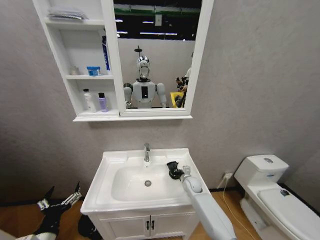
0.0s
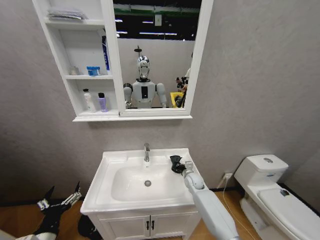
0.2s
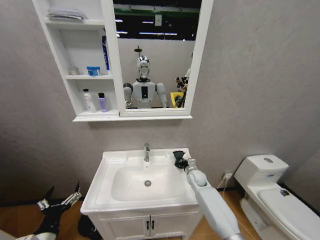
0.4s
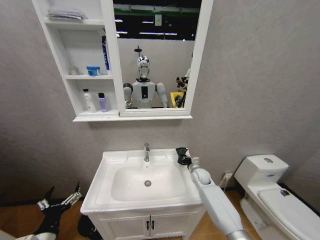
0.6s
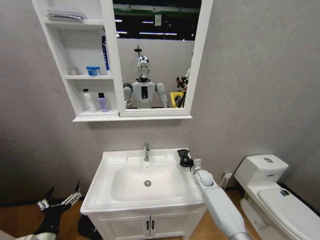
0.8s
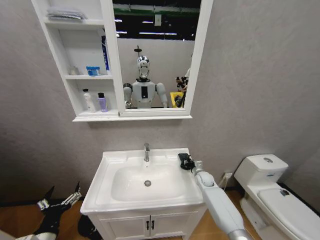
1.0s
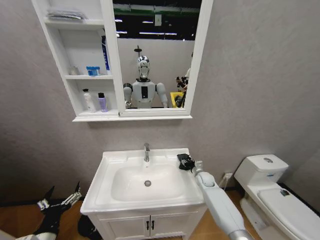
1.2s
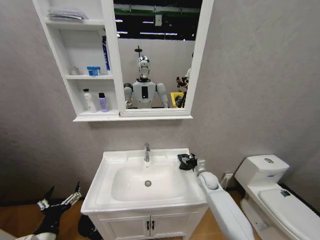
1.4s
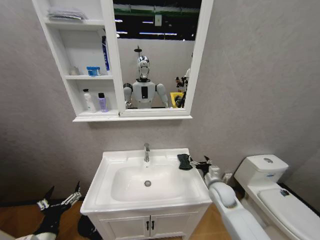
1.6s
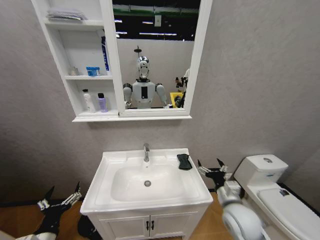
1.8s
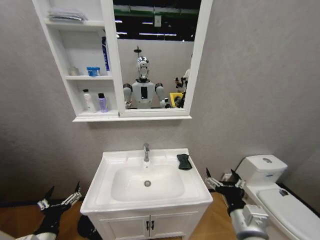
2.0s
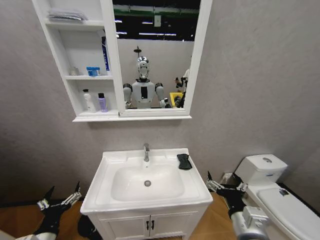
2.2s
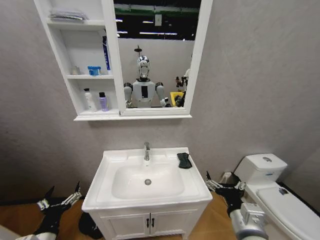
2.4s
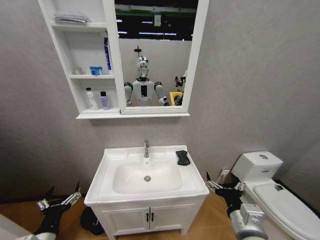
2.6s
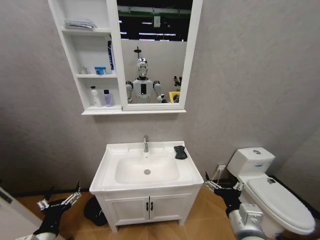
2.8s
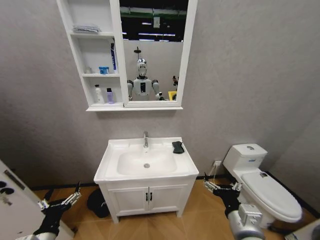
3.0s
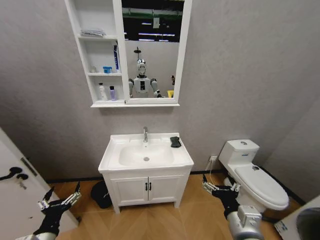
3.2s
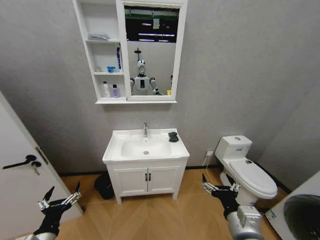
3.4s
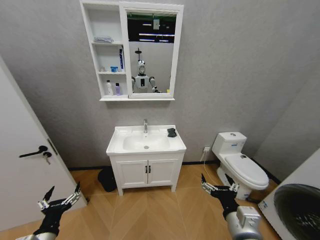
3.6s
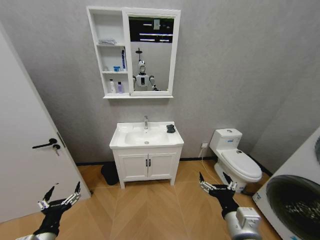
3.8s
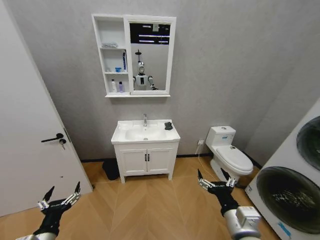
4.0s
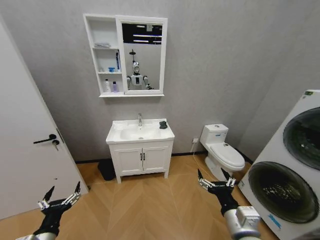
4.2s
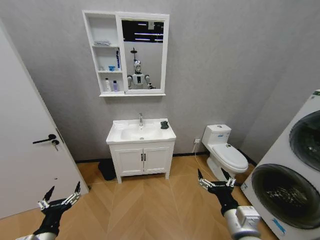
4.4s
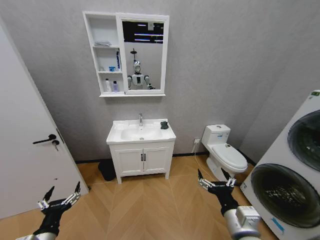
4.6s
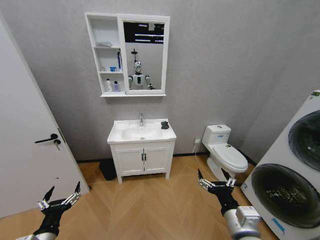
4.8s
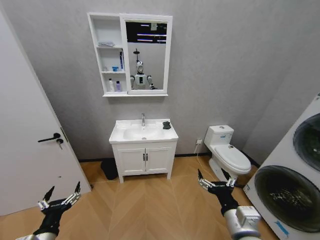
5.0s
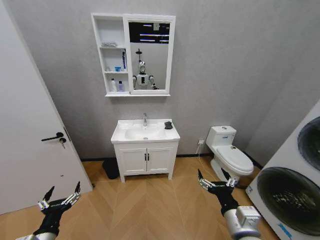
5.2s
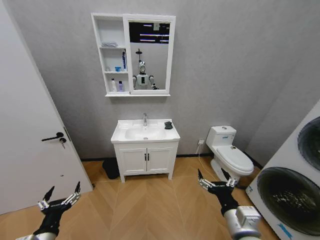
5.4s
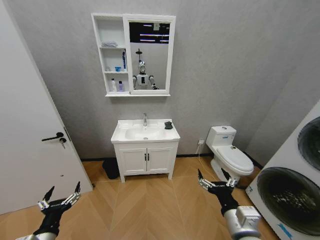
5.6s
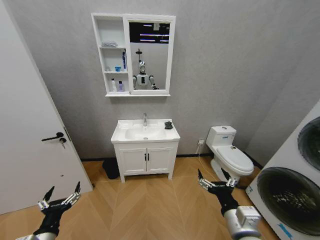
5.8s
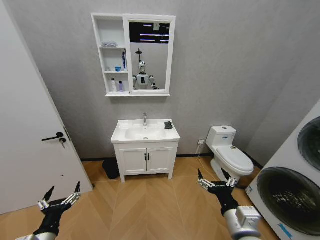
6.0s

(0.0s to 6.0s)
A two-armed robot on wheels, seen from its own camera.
Task of the whole recording: Move facial cleanser and shampoo from washbasin to cabinet, then wipe washbasin with towel.
0.0s - 1.6s: The right gripper heads backward, upward and to the right, covering approximately 15 cm, and opens its fingers.
1.6s - 3.0s: The right gripper heads backward, covering some 20 cm.
4.4s - 6.0s: Both grippers stay put.

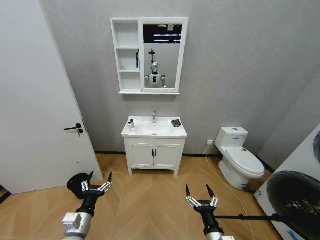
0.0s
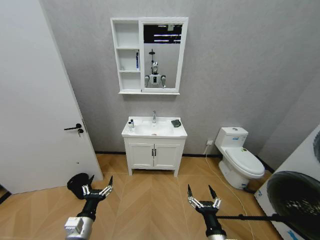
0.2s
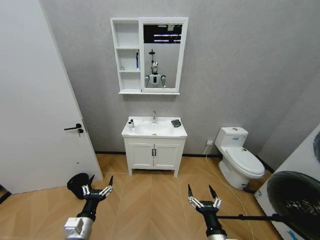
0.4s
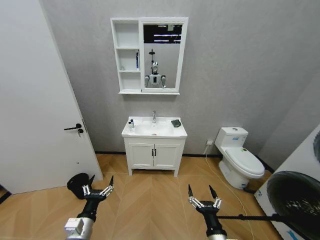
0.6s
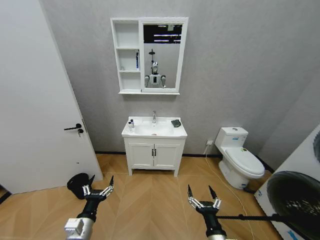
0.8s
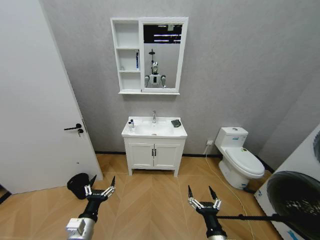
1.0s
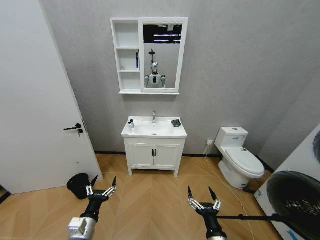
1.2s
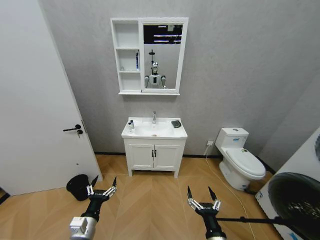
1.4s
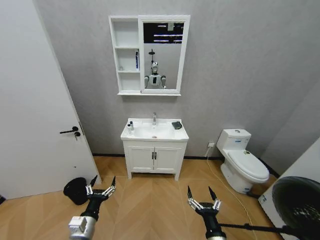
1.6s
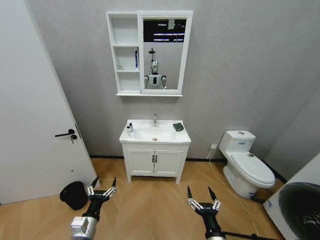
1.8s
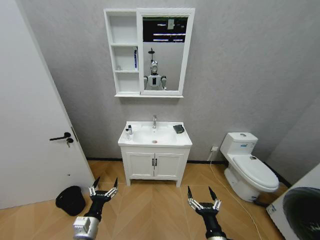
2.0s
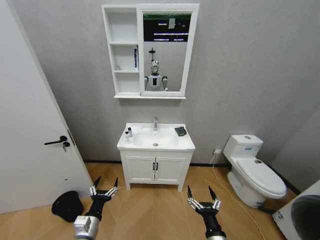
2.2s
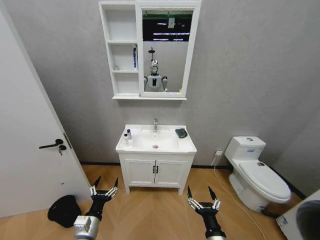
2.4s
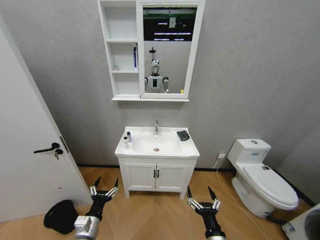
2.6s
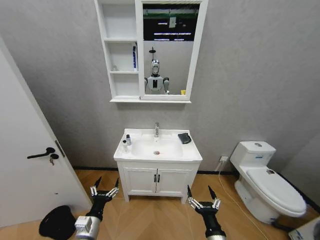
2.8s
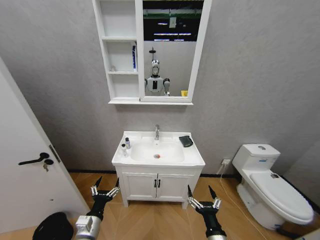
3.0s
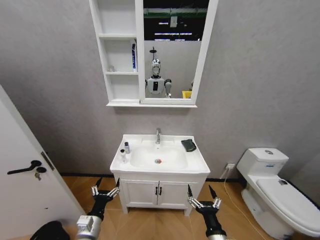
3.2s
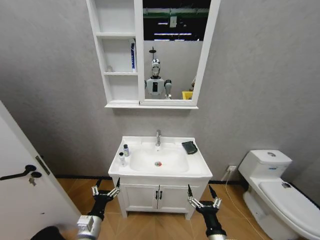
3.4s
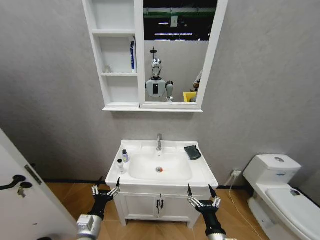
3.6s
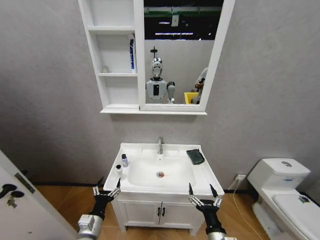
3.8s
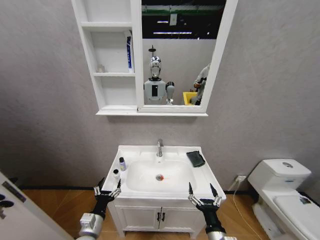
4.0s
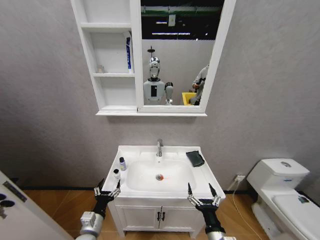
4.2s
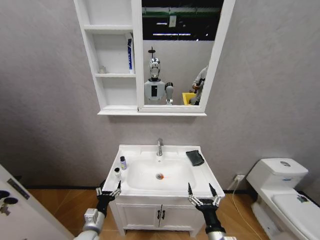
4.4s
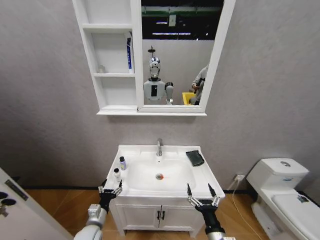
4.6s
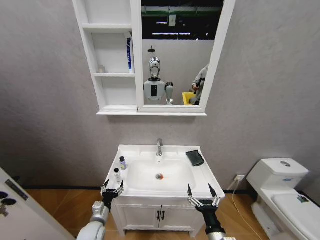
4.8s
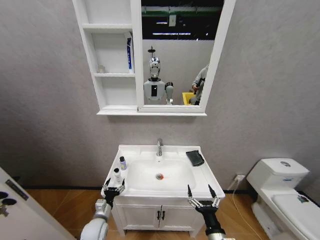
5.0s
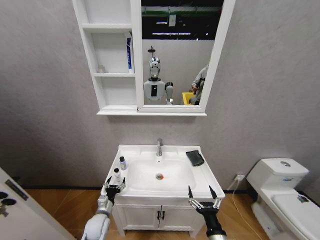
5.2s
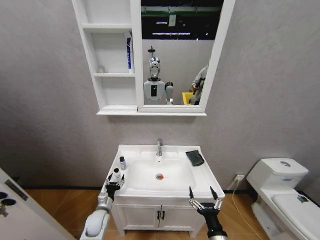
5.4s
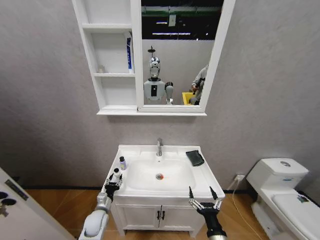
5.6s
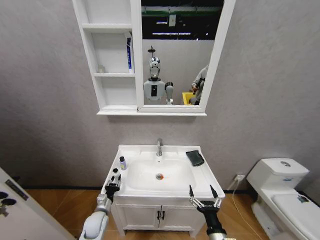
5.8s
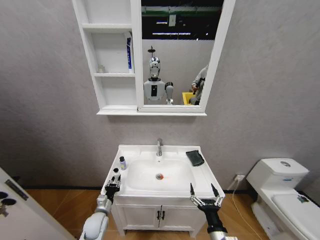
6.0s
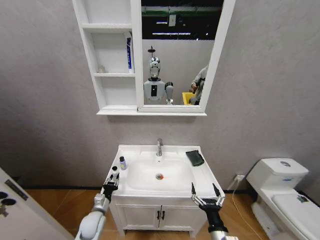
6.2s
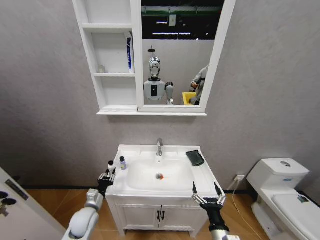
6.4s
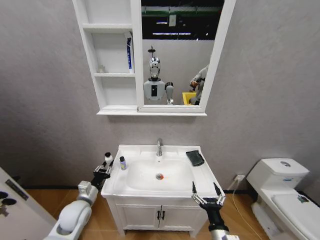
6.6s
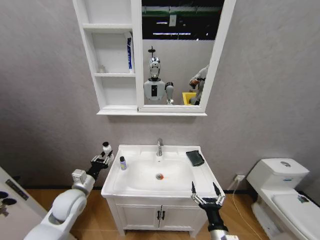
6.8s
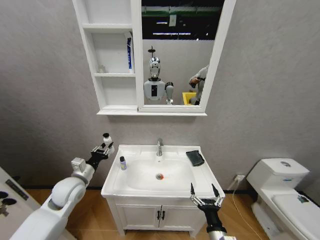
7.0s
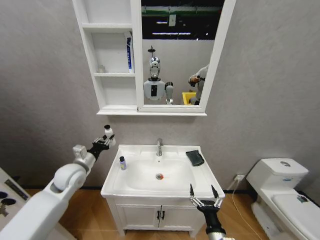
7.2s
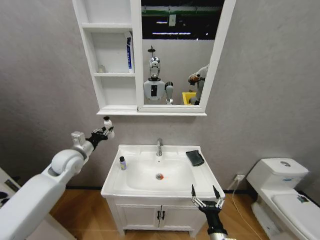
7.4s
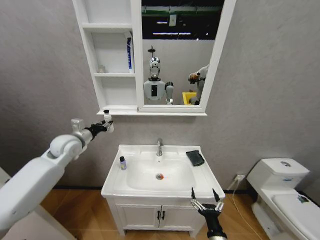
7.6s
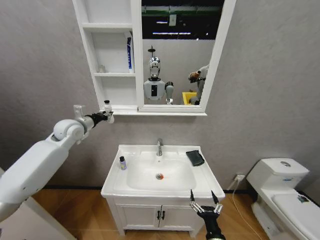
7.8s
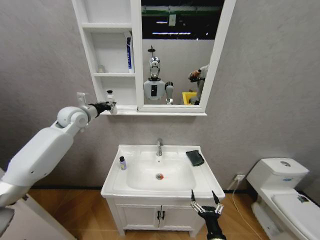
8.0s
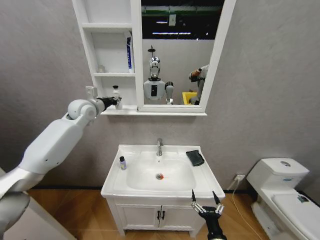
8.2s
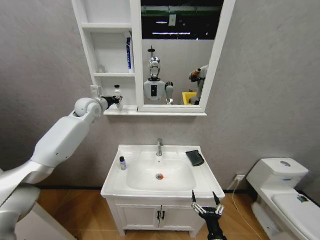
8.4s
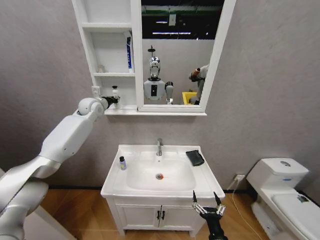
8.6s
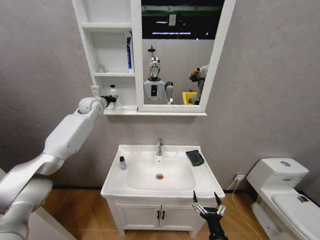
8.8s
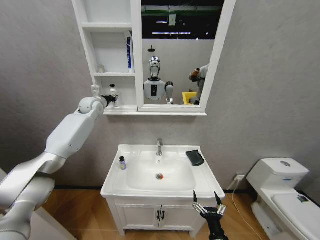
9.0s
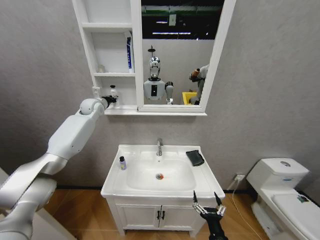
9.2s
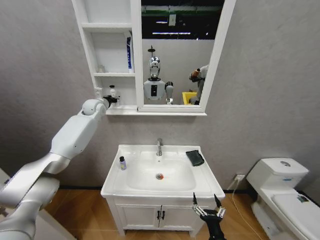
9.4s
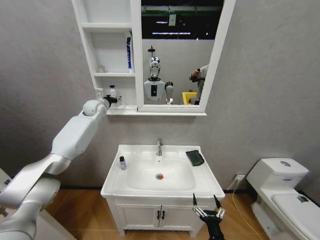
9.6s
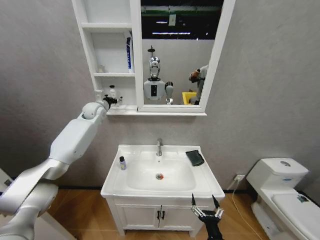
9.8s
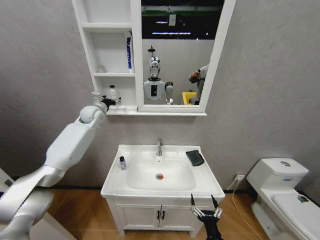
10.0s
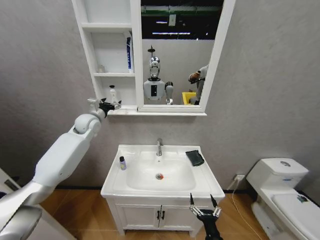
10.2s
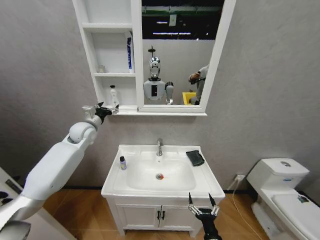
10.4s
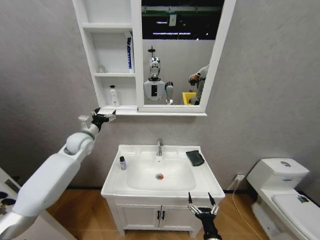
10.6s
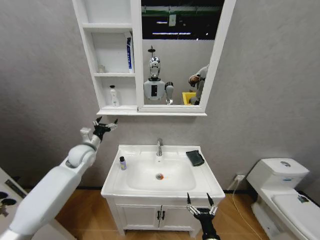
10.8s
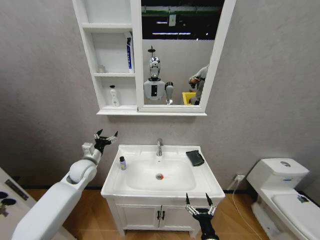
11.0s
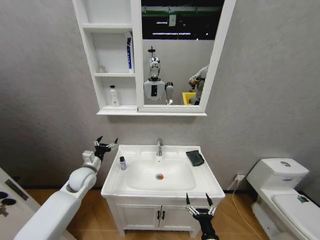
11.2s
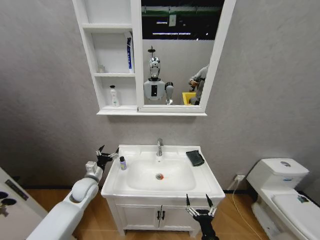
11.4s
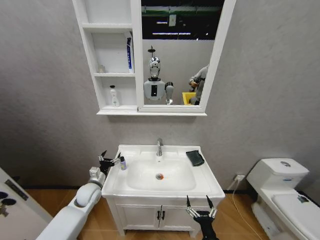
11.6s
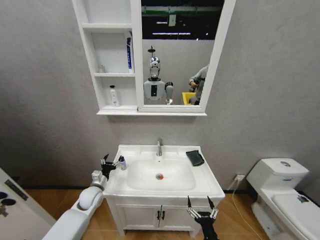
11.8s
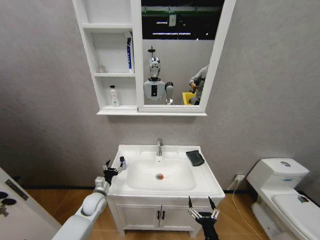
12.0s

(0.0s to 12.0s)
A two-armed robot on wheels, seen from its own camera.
Task of the whole recording: Move facial cleanser and shampoo from washbasin to cabinet, then wipe washbasin with towel.
3.0s - 4.4s: The left gripper changes place by some 5 cm.
4.4s - 6.0s: The left gripper travels forward and downward by about 10 cm, and closes.
6.0s - 7.6s: The left gripper travels upward by approximately 35 cm.
7.6s - 9.0s: The left gripper heads forward and upward, covering some 20 cm.
9.0s - 10.4s: The left gripper moves backward and downward, approximately 15 cm, and opens its fingers.
10.4s - 12.0s: The left gripper moves downward, about 30 cm.

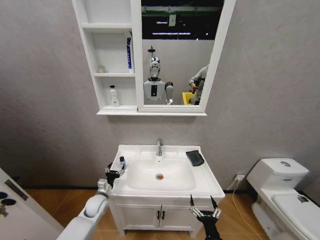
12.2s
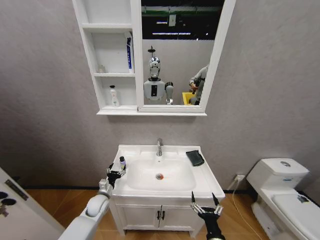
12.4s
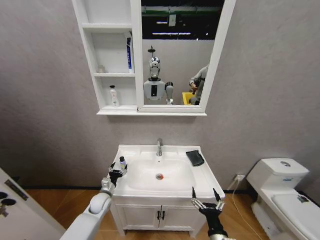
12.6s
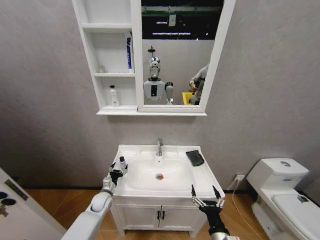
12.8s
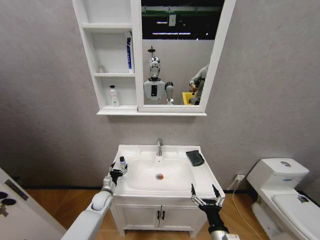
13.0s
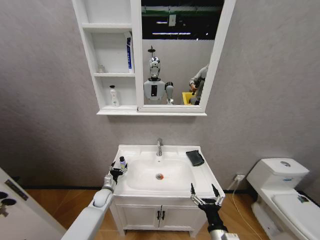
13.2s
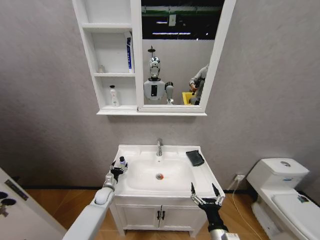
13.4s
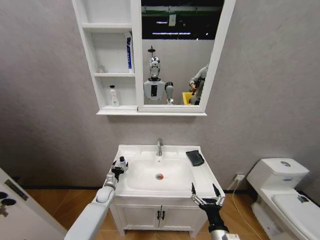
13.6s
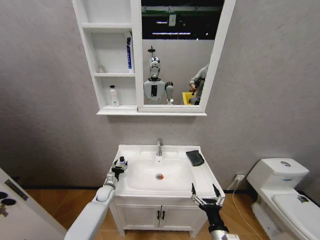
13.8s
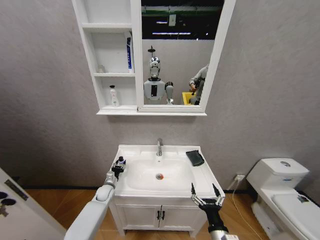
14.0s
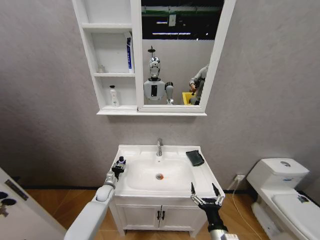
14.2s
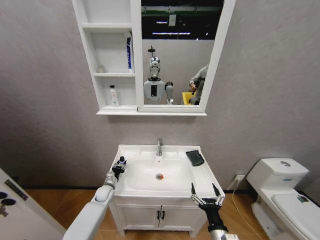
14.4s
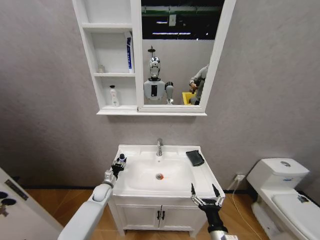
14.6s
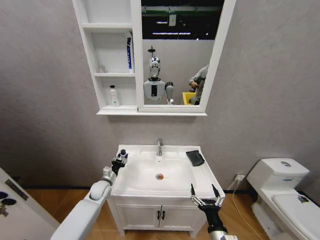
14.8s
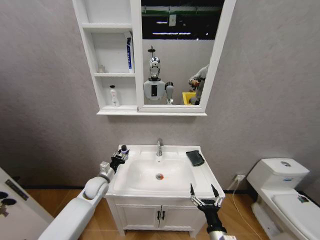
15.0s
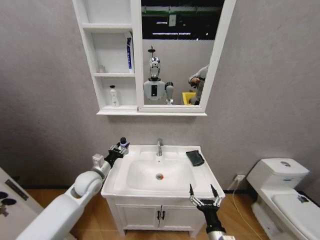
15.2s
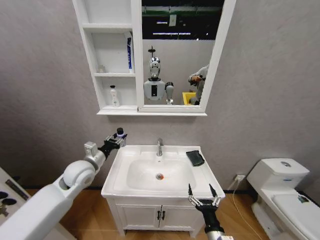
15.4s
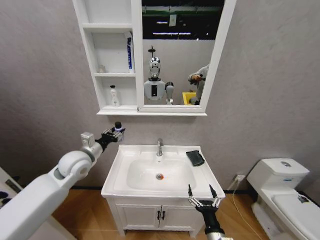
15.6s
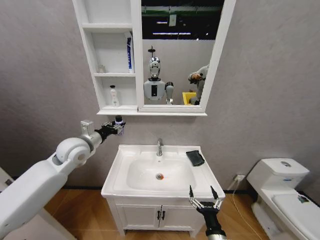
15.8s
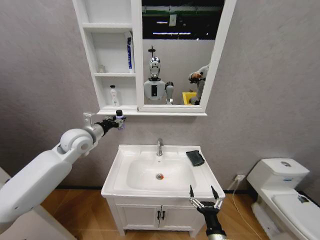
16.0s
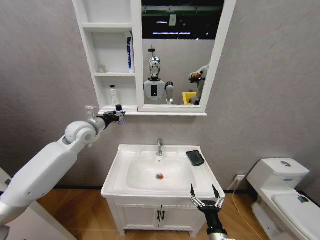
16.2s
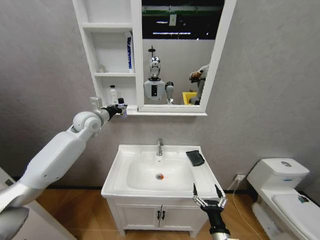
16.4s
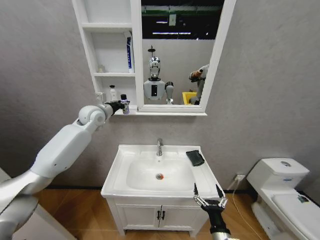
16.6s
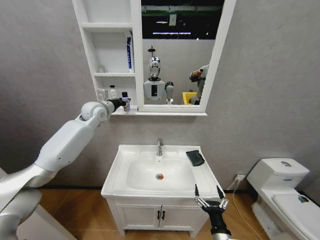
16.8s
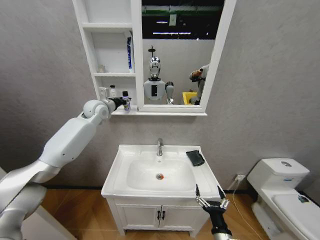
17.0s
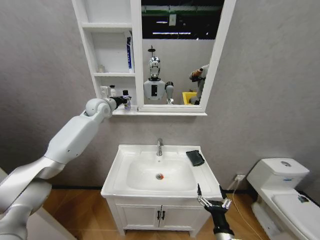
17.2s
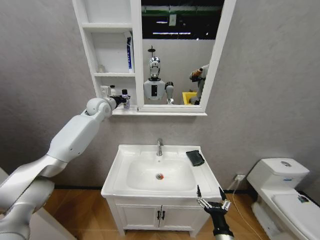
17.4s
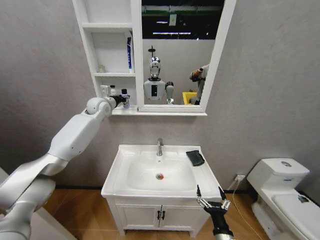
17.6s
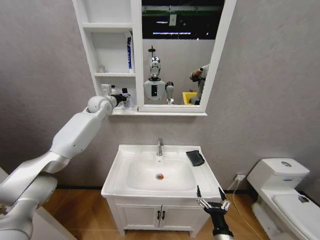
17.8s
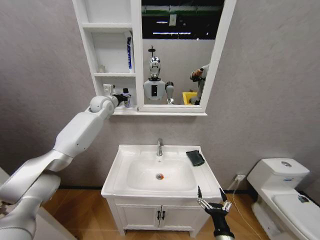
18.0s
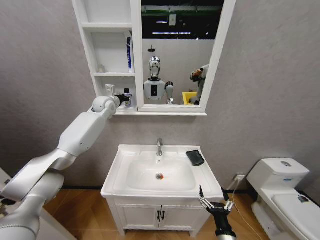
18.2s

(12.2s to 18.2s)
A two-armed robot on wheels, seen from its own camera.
Task of the whole recording: Move facial cleanser and shampoo from washbasin to cabinet, then wipe washbasin with towel.
12.2s - 13.8s: The left gripper is displaced forward by some 10 cm. Meanwhile the right gripper goes some 5 cm upward.
13.8s - 15.2s: The left gripper travels upward by approximately 20 cm, and closes.
15.2s - 16.6s: The left gripper is displaced upward and forward by about 30 cm.
16.6s - 18.2s: The left gripper is displaced forward by approximately 10 cm.
